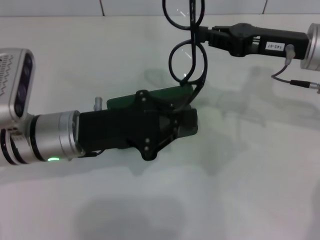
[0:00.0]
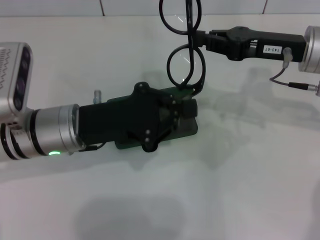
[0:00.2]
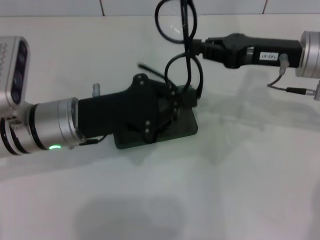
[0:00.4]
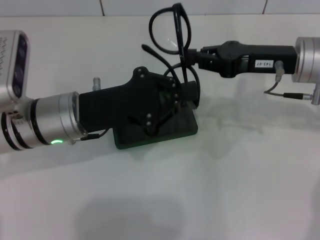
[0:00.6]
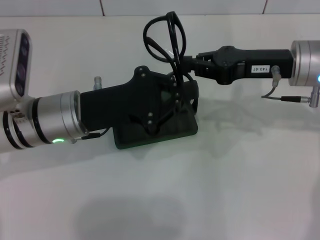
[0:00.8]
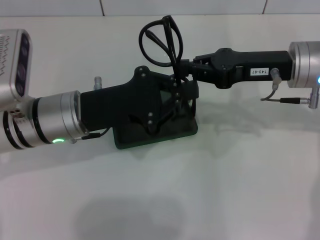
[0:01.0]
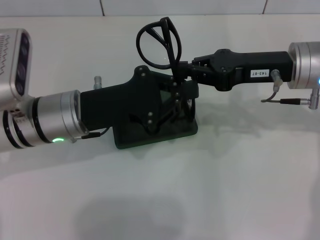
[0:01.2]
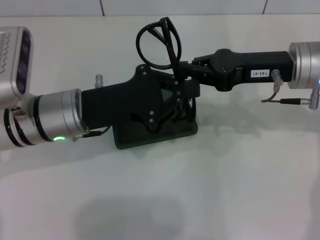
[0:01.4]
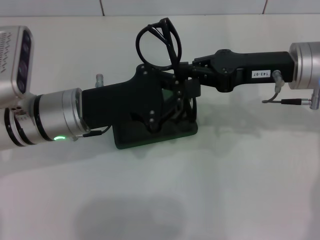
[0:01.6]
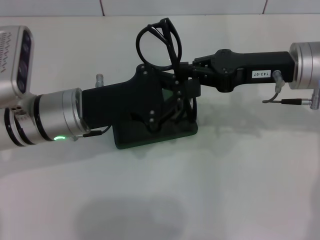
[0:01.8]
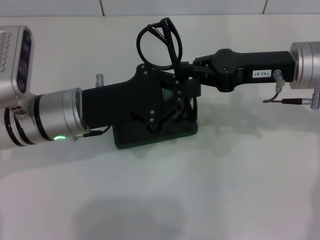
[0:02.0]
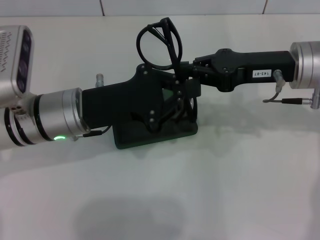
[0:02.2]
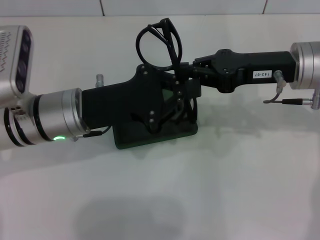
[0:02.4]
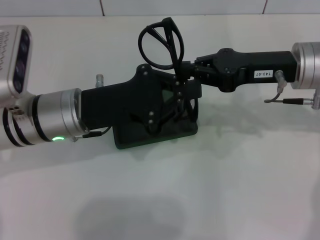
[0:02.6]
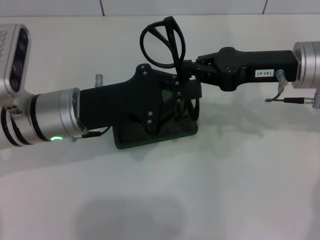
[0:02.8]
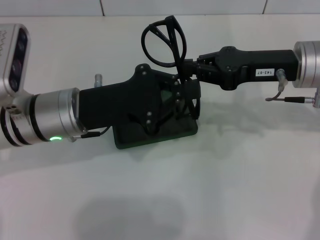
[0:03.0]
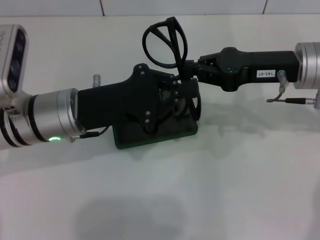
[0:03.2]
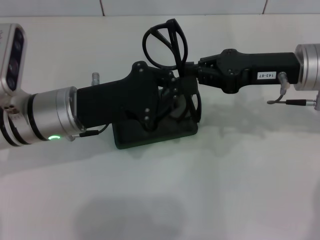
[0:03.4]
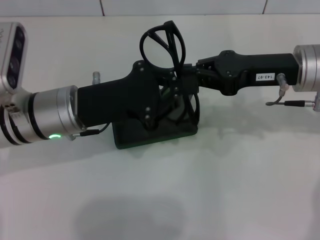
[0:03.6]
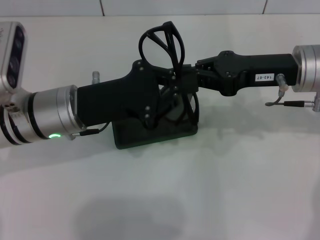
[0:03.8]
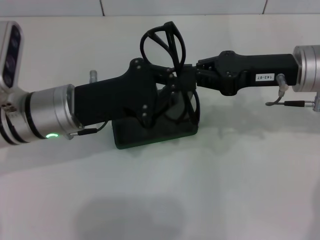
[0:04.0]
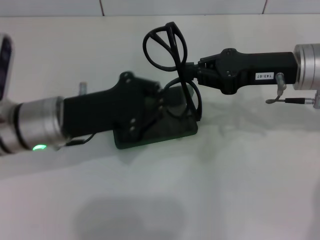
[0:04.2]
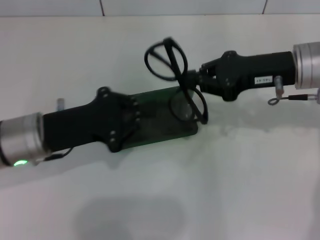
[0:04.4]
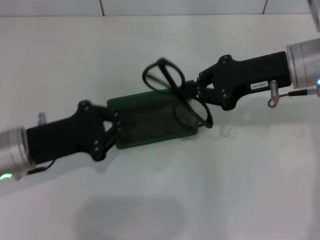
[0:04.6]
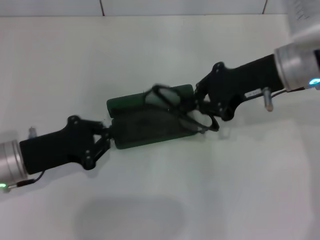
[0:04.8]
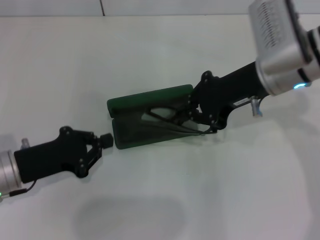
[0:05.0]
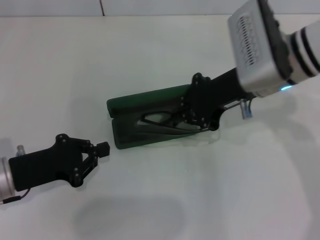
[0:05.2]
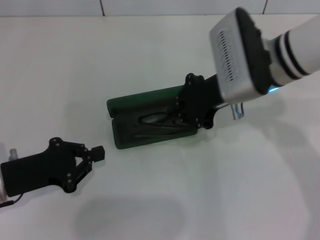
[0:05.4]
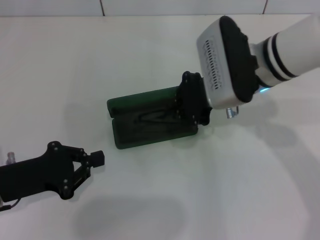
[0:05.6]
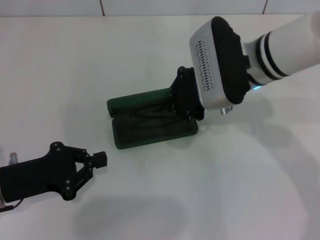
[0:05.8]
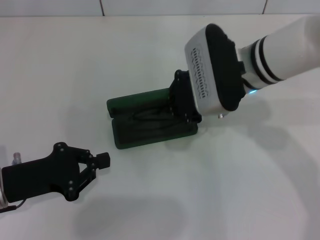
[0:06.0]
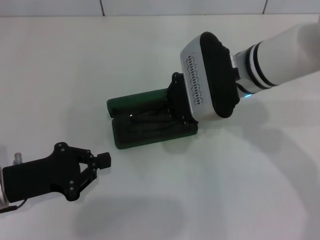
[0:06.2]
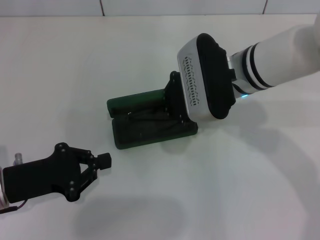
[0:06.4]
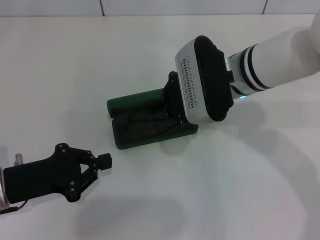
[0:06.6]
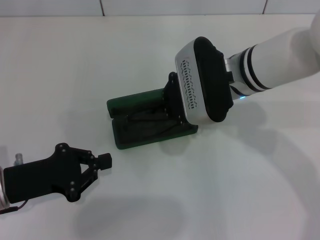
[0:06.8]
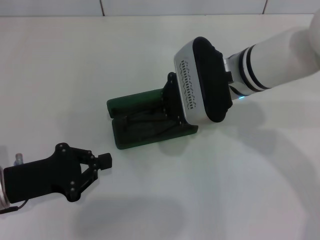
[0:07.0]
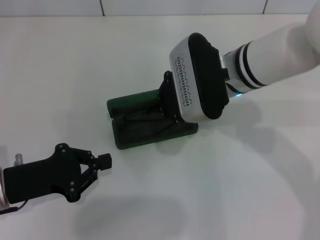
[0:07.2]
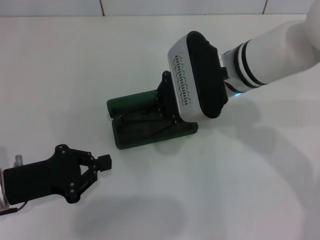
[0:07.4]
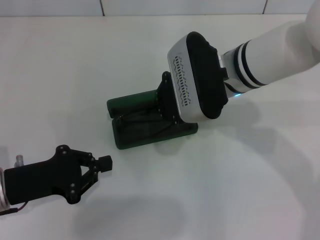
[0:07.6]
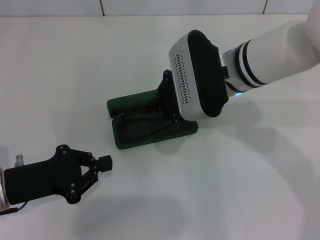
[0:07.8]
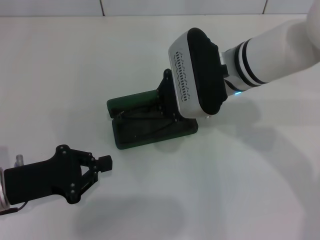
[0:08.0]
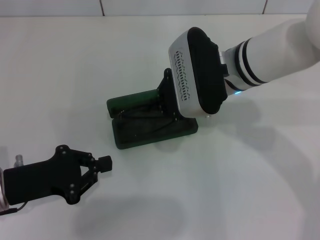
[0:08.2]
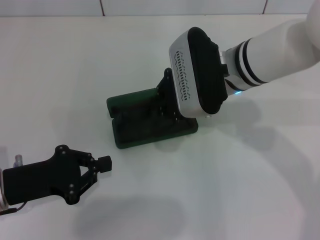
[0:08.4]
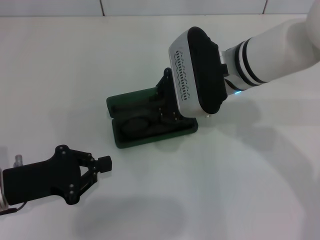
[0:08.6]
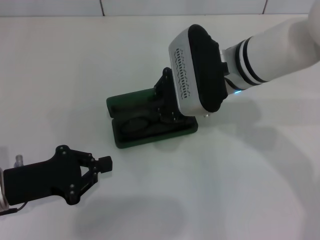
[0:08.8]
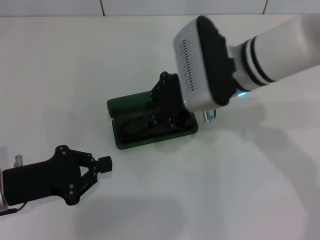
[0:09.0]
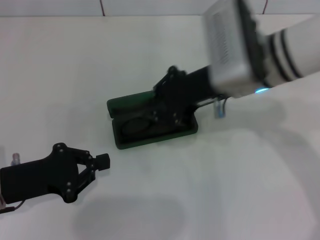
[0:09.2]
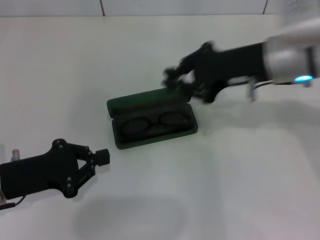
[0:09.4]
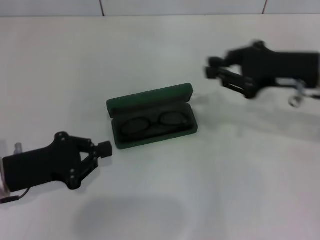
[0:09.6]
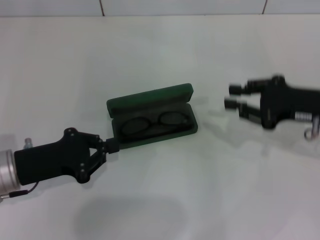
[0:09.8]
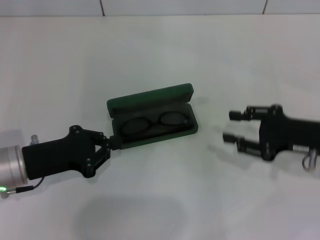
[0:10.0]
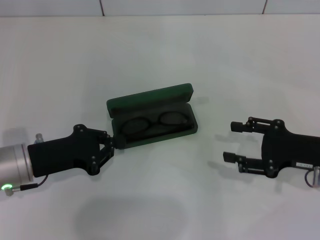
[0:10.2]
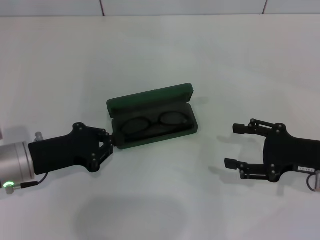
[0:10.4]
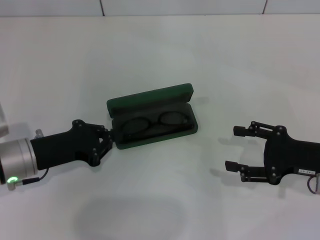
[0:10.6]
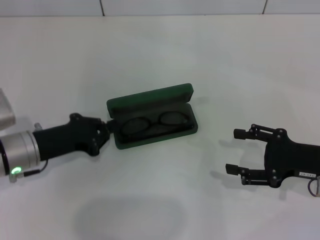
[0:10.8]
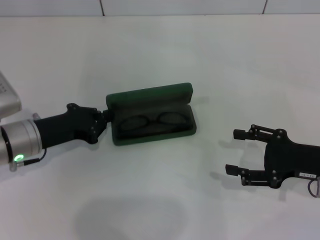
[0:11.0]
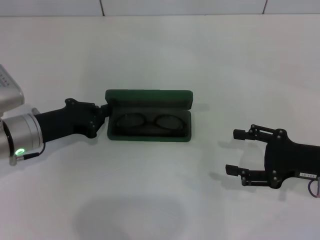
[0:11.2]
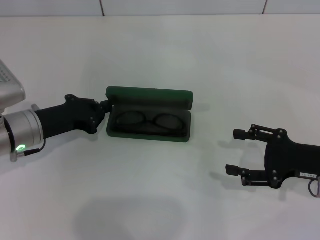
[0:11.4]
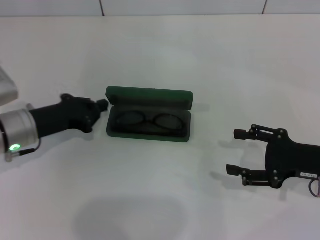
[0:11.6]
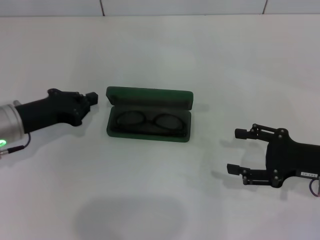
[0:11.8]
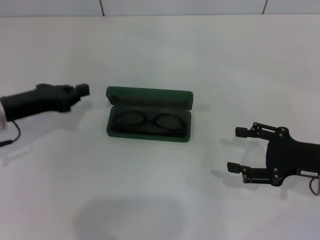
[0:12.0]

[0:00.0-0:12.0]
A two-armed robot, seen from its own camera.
Step, 0:02.0 to 0:08.2: Put the glasses into the case with your right hand.
0:01.6 to 0:03.0: Both grippers stay put.
0:03.0 to 0:04.4: The left gripper shifts by roughly 5 cm.
0:04.4 to 0:06.0: The left gripper is displaced to the left and backward by some 10 cm. Meanwhile the right gripper travels to the left by some 10 cm.
0:06.0 to 0:09.0: There are only small adjustments of the grippers.
0:09.0 to 0:10.4: The right gripper shifts approximately 25 cm to the right and downward, and opens.
0:10.4 to 0:12.0: The left gripper travels forward by roughly 5 cm.

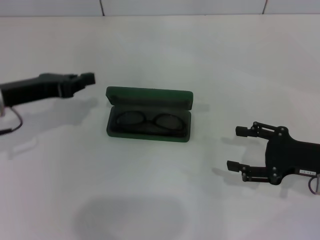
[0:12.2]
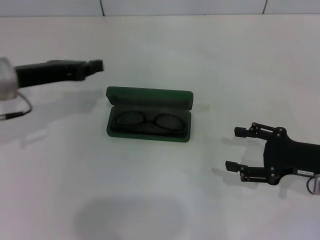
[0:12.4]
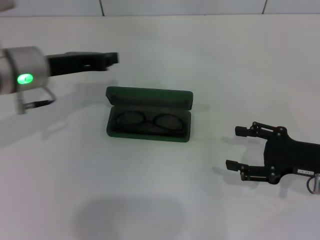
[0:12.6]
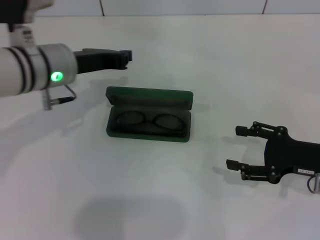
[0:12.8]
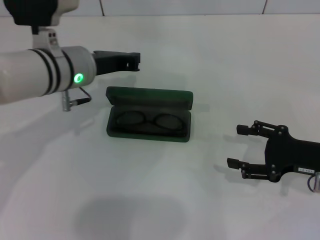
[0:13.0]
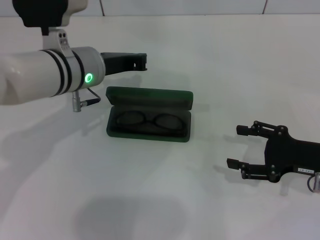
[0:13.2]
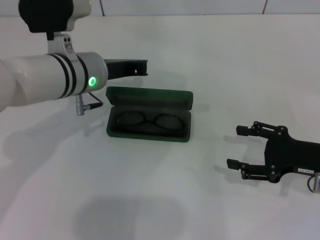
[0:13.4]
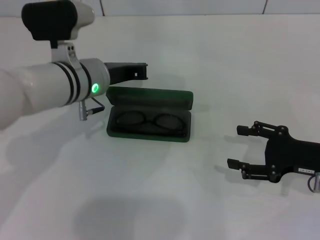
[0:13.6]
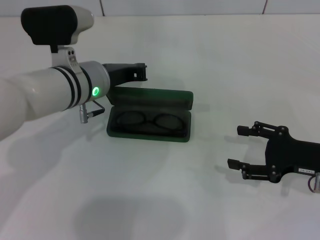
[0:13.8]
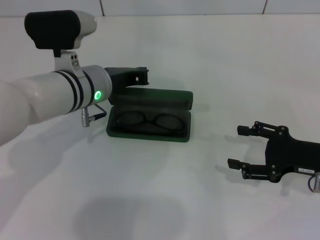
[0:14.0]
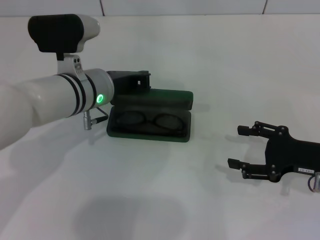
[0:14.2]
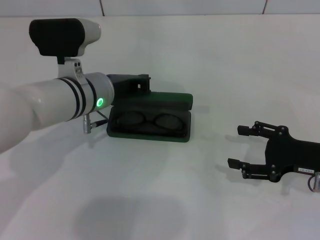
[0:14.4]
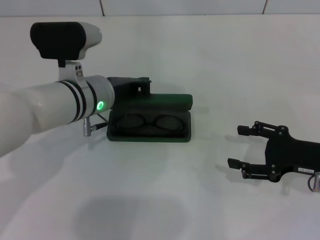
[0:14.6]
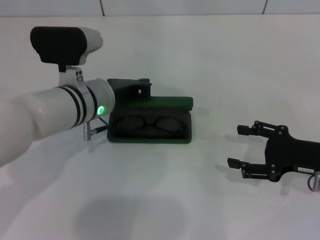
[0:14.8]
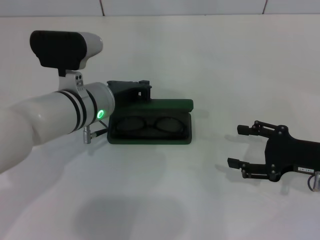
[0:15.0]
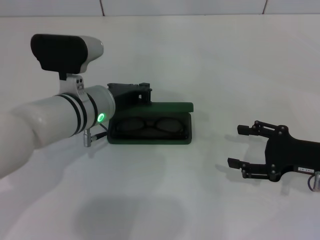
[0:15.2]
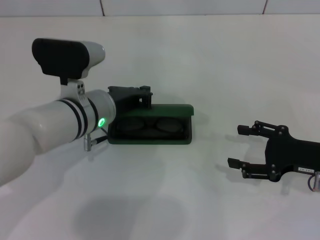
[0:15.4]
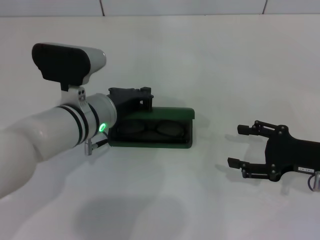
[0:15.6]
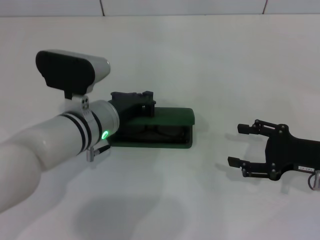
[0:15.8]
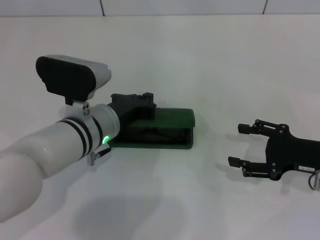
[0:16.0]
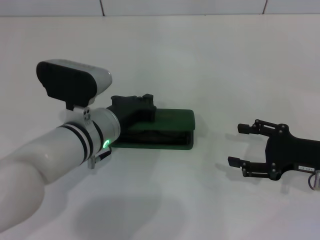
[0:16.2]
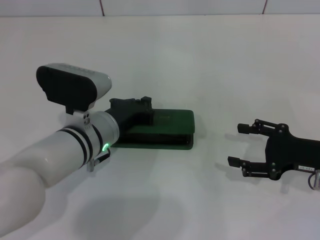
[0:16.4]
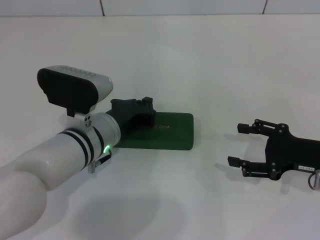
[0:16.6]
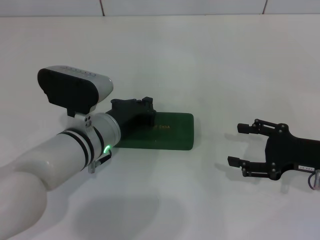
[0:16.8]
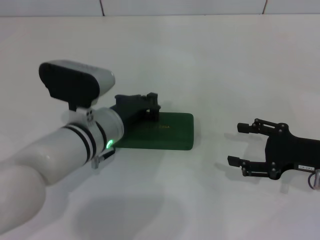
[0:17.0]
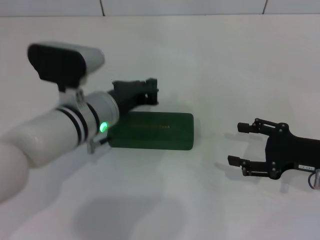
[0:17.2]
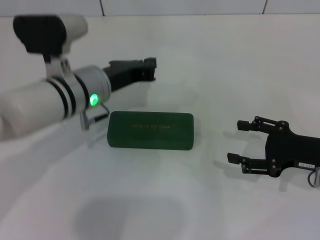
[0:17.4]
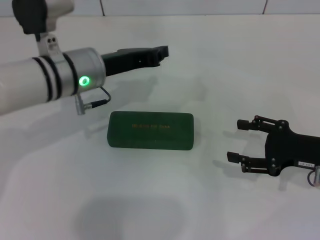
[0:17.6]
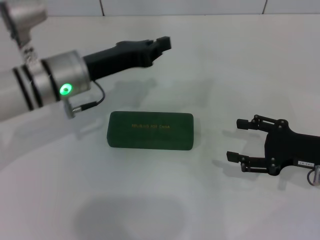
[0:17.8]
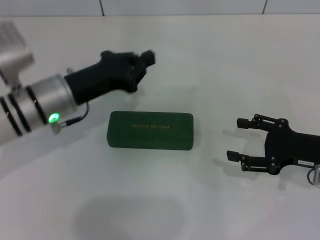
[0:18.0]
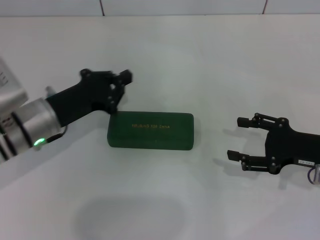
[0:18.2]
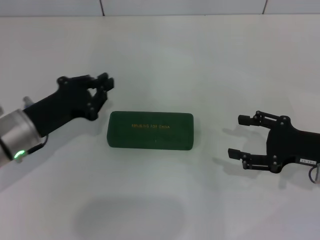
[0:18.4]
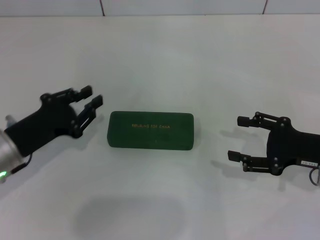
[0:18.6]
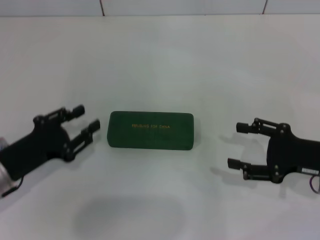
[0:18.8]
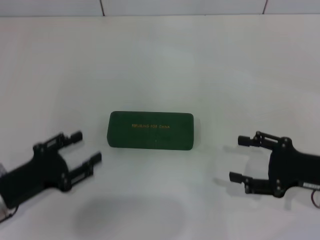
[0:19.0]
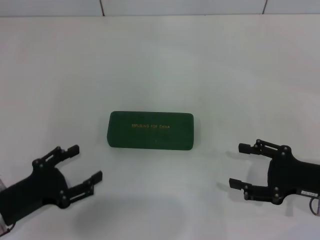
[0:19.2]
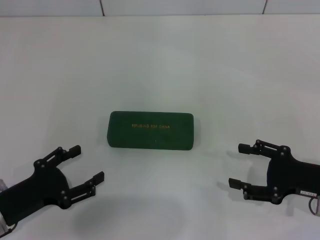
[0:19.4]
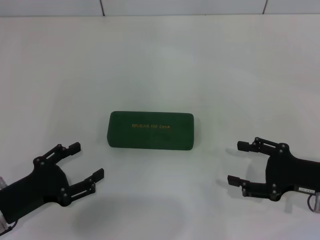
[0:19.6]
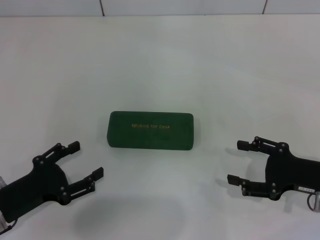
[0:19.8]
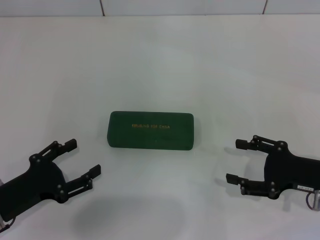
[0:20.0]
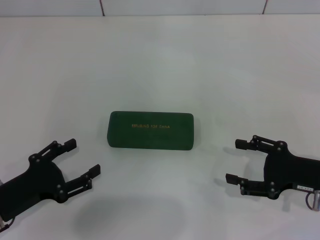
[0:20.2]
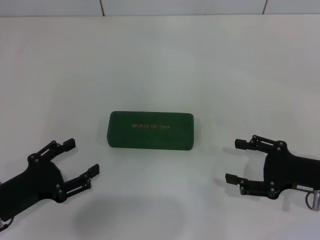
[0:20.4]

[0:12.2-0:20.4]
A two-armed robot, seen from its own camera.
Step, 0:12.2 to 0:16.6: Close the glasses case with your left hand.
0:12.2 to 0:13.8: The left gripper moves to the right, about 15 cm.
0:13.8 to 0:15.4: The grippers stay close to where they were, moving slightly.
0:15.4 to 0:17.2: The grippers make only small movements.
0:17.2 to 0:18.8: The left gripper heads to the left and backward, covering roughly 15 cm, and opens up.
0:18.8 to 0:20.4: The left gripper moves about 5 cm, and opens.

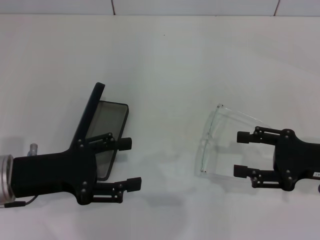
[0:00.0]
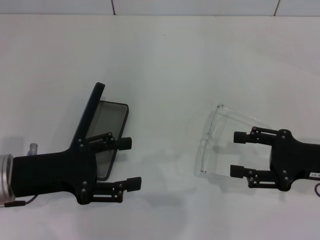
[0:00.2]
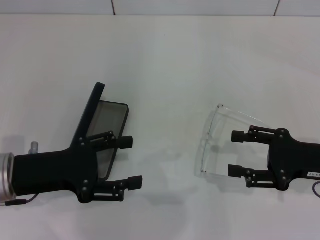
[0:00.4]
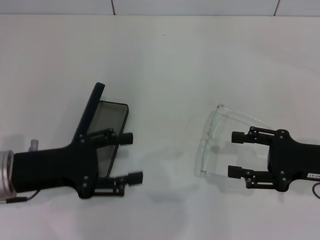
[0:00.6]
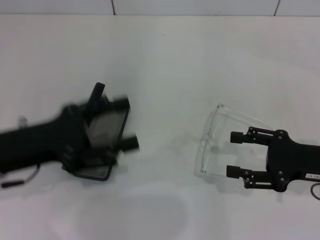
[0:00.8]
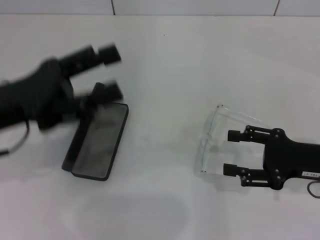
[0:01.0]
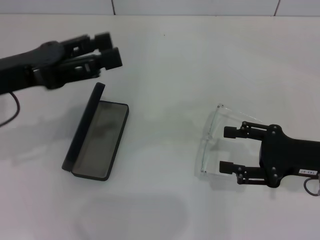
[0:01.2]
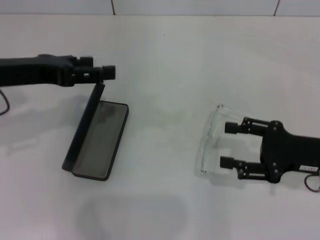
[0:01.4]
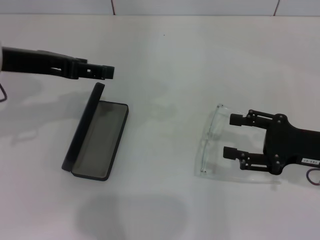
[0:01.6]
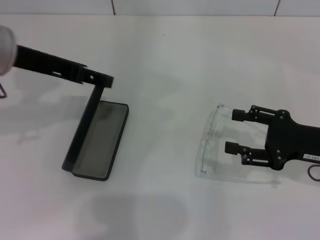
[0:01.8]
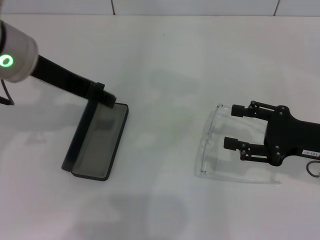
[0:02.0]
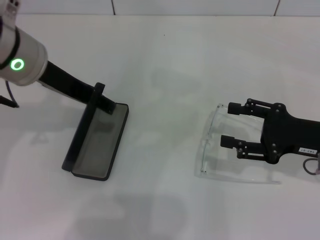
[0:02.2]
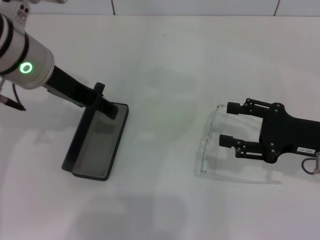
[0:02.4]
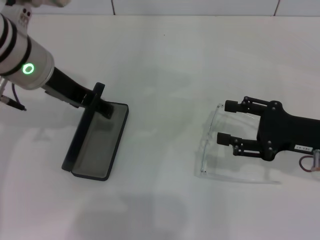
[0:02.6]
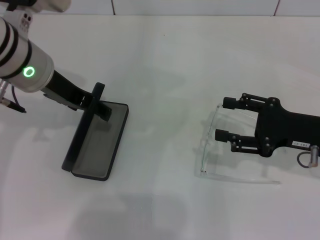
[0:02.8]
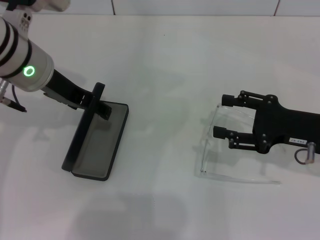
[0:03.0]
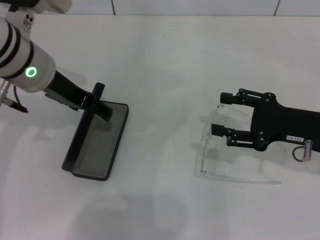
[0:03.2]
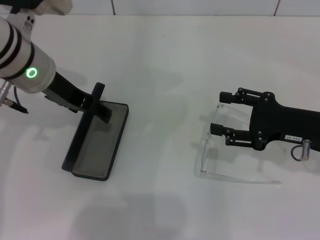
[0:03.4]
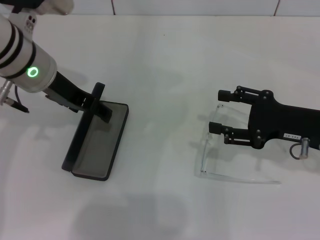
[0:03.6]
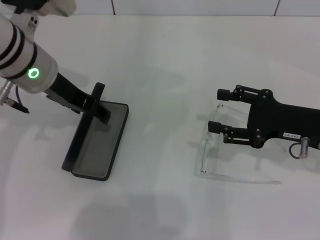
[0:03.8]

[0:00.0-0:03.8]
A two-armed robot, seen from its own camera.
0:00.0 to 0:01.2: The left gripper travels upward and forward by about 10 cm.
0:01.2 to 0:02.6: The left gripper travels to the right and forward by approximately 10 cm.
0:02.6 to 0:03.8: The grippers stay close to where they were, moving slightly.
